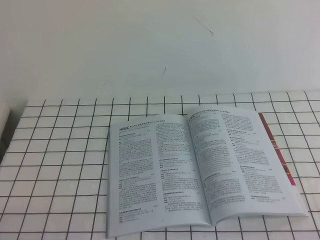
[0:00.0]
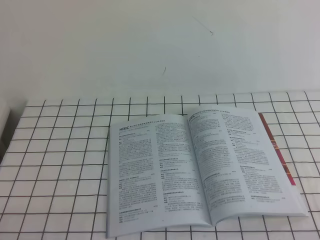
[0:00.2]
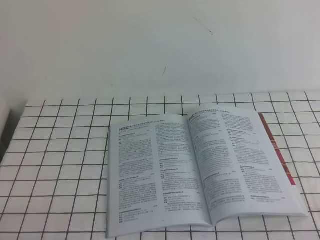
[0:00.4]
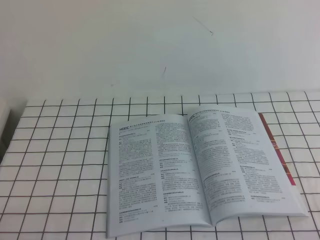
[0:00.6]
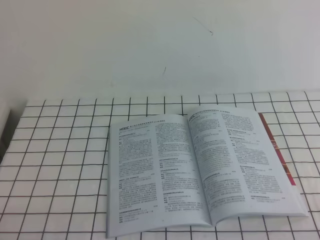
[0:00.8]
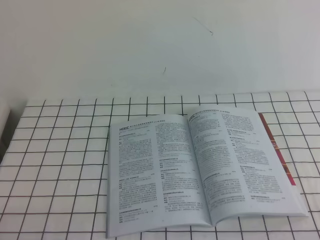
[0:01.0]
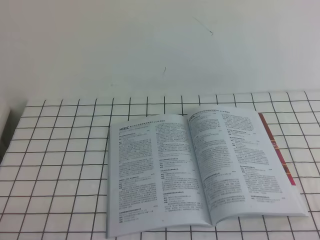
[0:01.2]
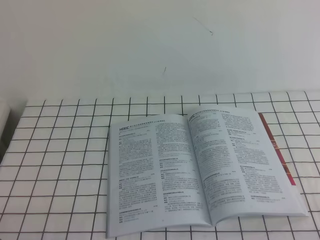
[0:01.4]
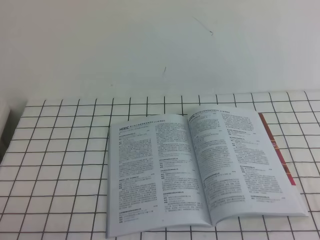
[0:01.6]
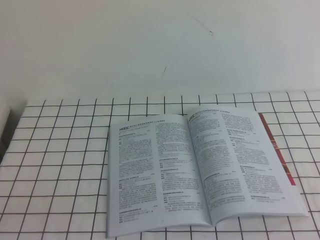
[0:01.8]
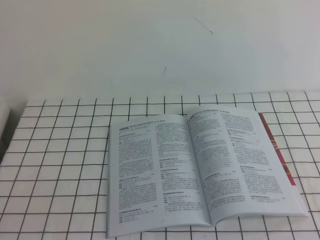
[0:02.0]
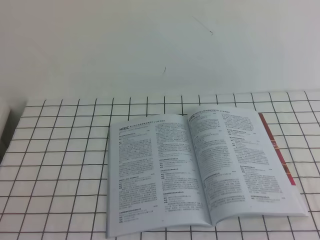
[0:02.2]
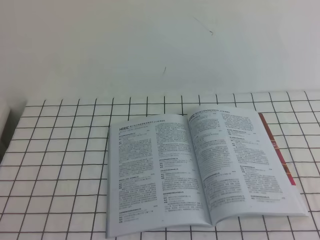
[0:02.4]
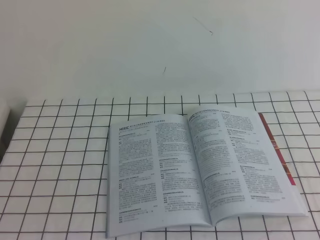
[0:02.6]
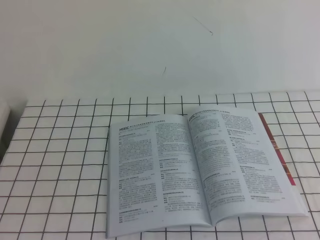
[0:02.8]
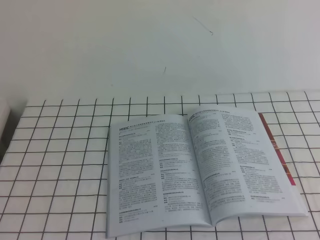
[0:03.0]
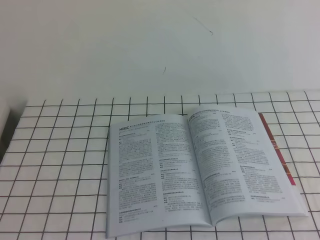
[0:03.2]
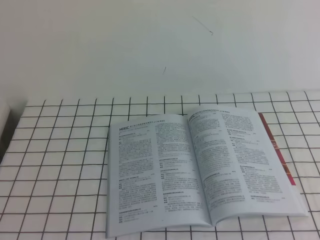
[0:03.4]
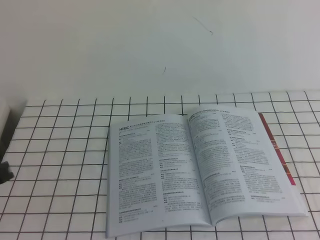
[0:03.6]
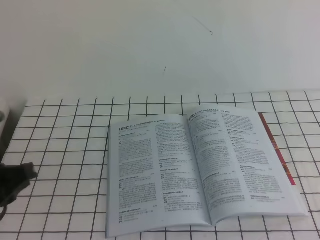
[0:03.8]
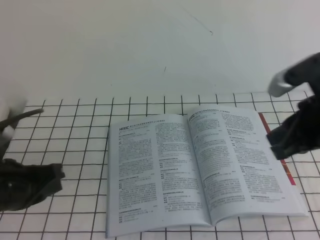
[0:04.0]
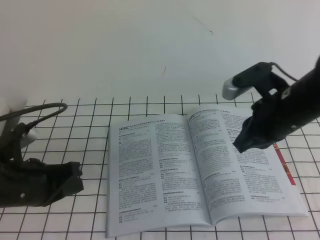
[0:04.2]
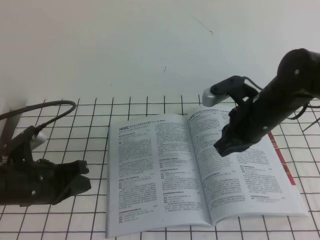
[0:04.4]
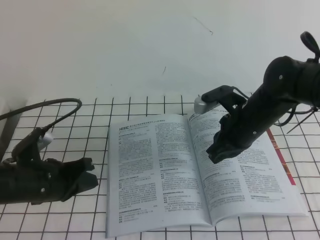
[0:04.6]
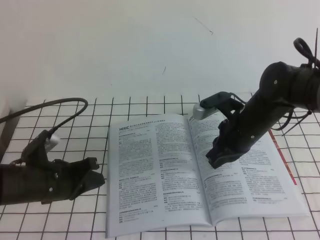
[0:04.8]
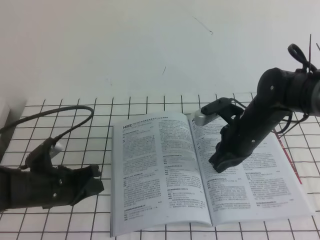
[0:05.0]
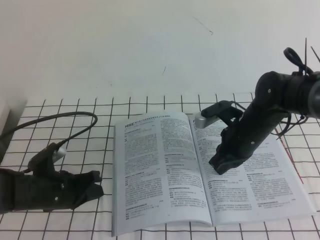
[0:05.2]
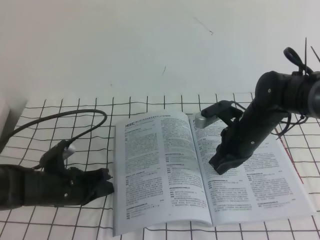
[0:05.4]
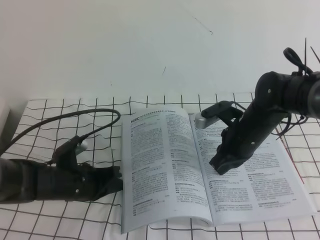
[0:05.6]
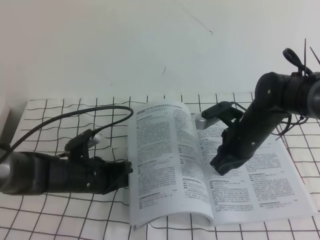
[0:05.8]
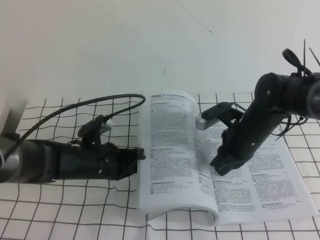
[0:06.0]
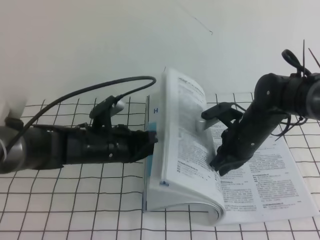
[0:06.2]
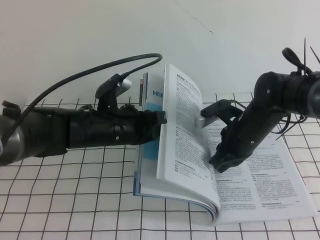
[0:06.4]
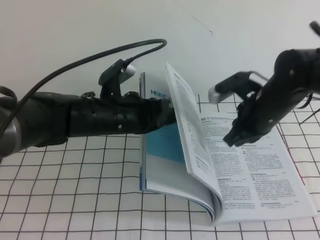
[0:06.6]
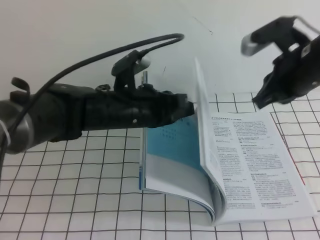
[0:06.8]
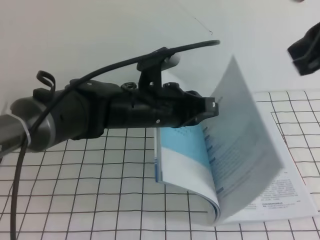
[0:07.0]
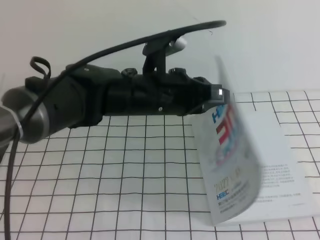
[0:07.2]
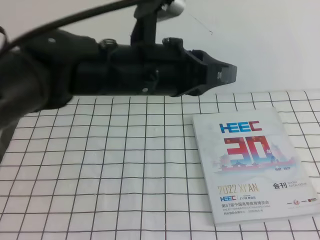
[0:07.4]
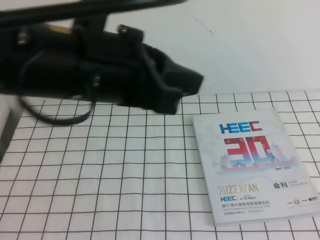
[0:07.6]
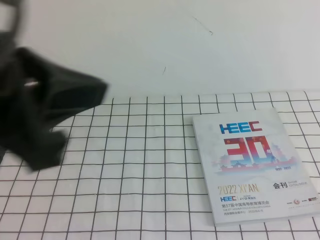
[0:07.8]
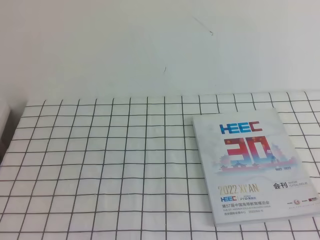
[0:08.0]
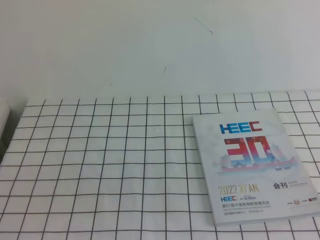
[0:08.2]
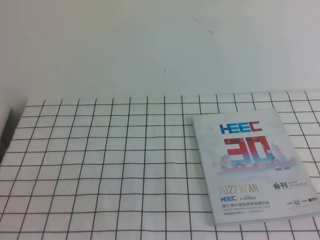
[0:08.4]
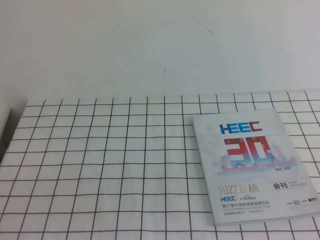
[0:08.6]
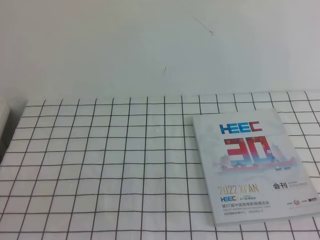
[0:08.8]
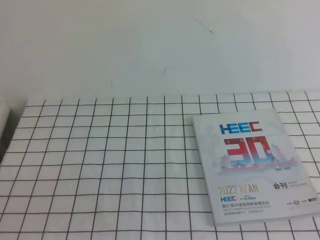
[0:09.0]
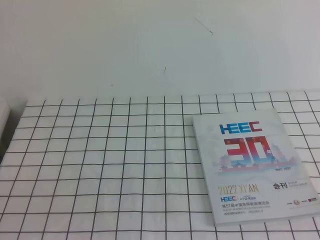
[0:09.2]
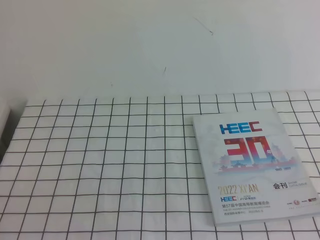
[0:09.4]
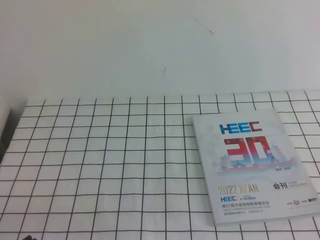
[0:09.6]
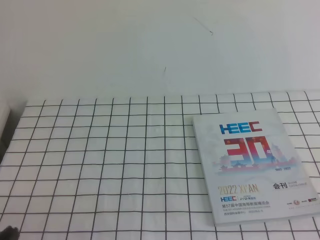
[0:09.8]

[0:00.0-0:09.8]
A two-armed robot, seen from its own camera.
Task of the whole recording: on the white tablecloth, hold the book with one hand and close it with the other.
0:00.0 to 0:01.4: Neither gripper changes place.
0:02.8 to 0:04.2: The left gripper shifts roughly 25 cm forward and downward. The right gripper goes roughly 35 cm forward, to the left and downward.
0:04.2 to 0:05.6: Both grippers move downward and forward, some 15 cm.
0:05.6 to 0:07.0: The right gripper is displaced upward by roughly 25 cm; the left gripper shifts about 20 cm upward and to the right.
0:07.0 to 0:08.4: The right gripper heads backward, covering approximately 25 cm; the left gripper travels backward and to the left by approximately 40 cm.
